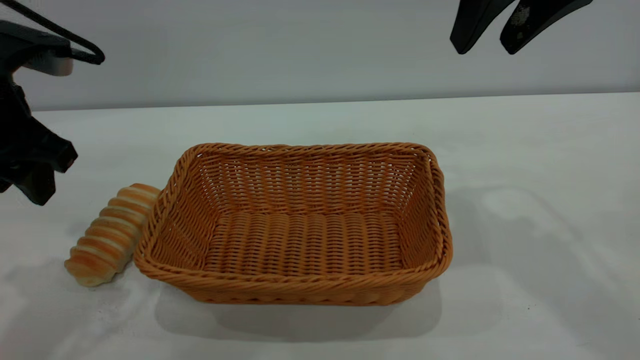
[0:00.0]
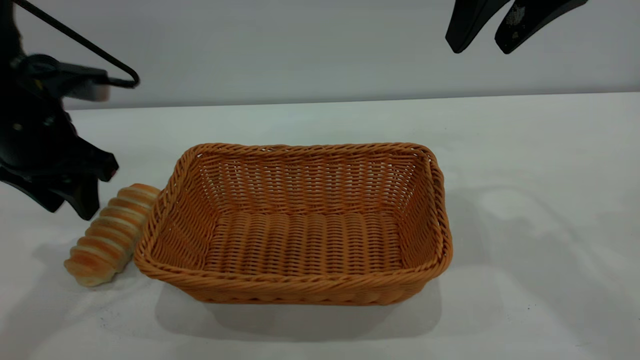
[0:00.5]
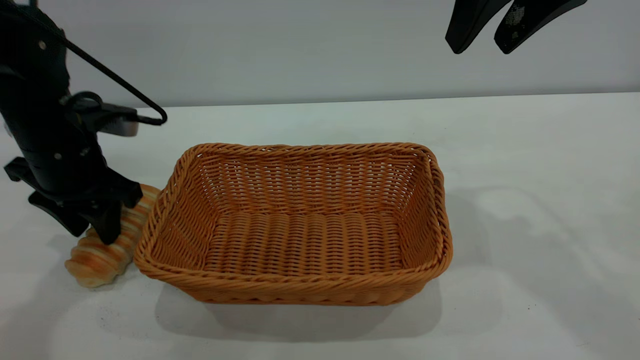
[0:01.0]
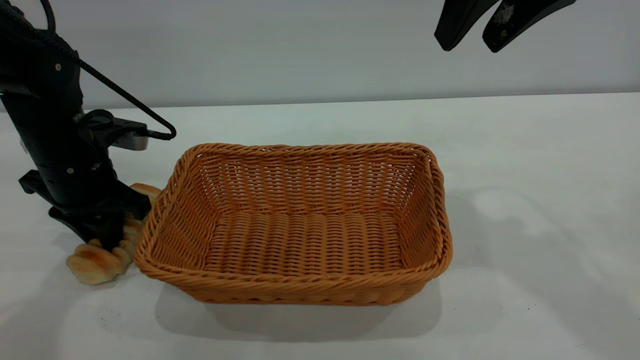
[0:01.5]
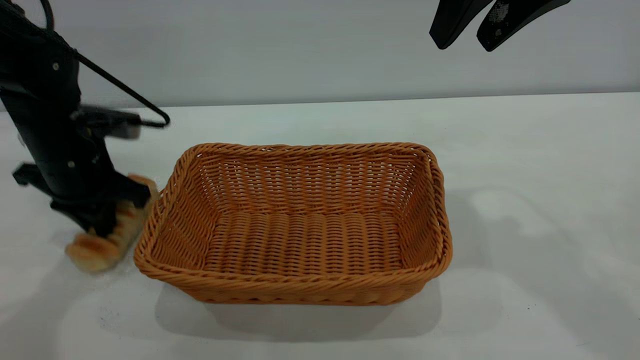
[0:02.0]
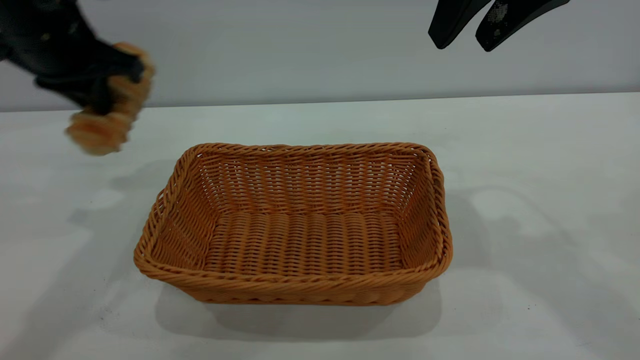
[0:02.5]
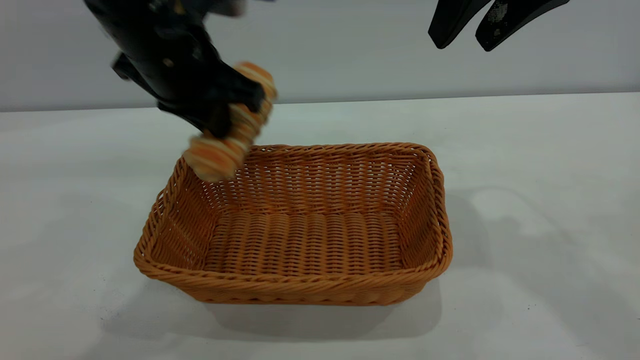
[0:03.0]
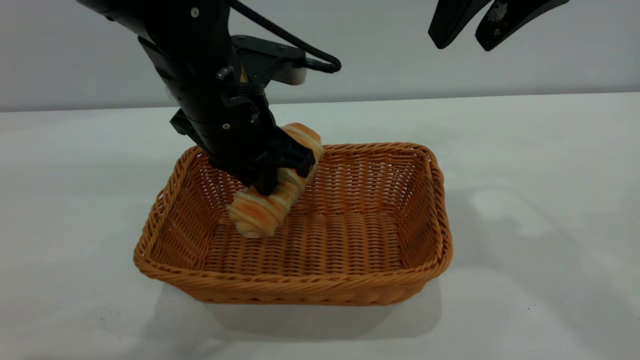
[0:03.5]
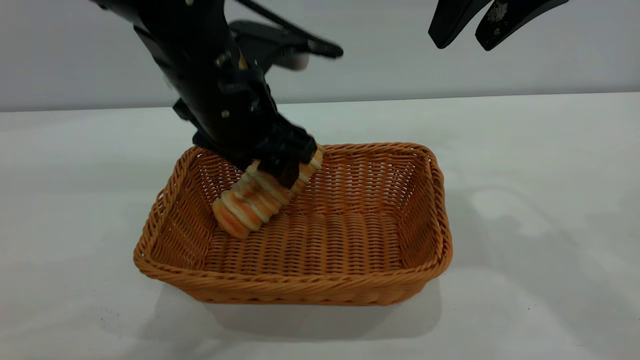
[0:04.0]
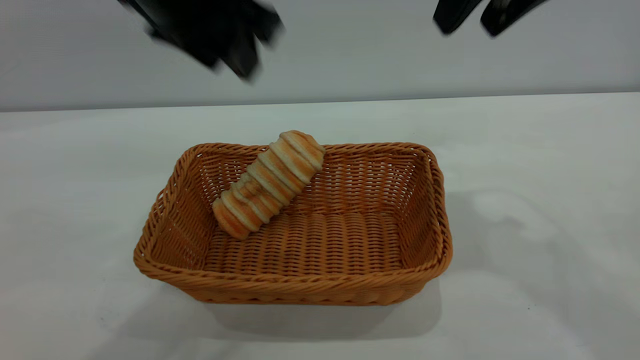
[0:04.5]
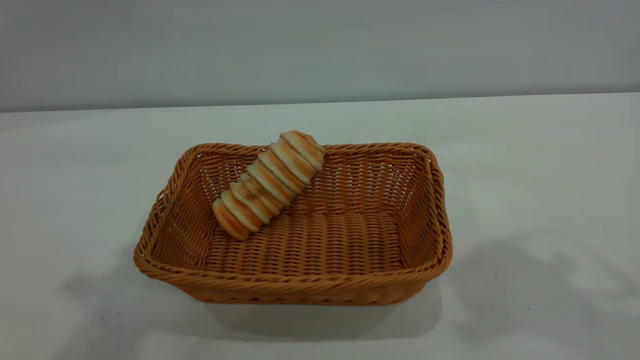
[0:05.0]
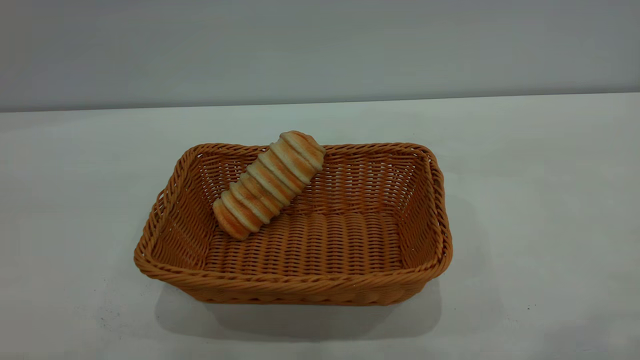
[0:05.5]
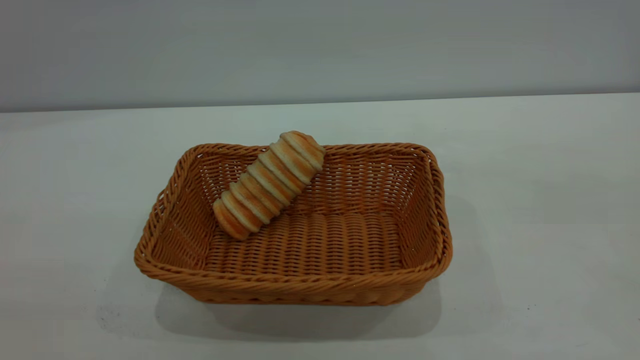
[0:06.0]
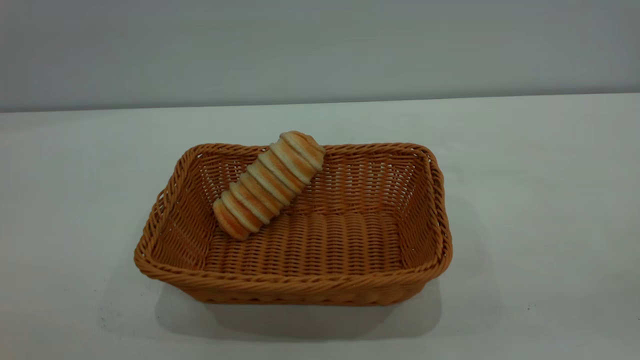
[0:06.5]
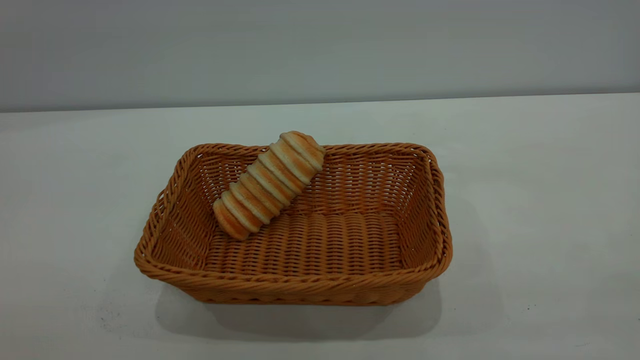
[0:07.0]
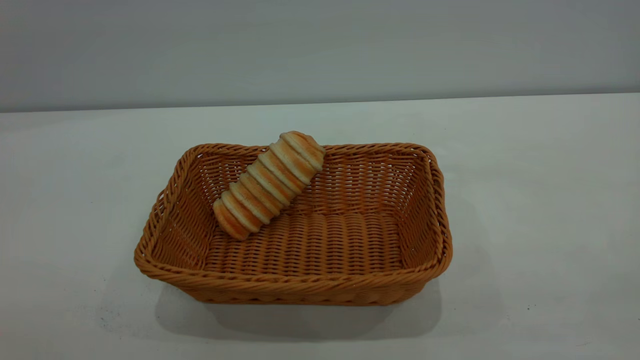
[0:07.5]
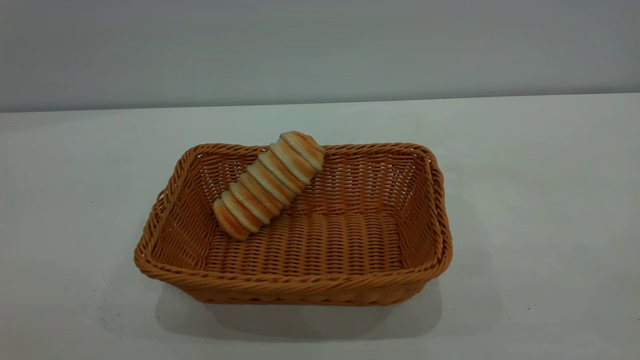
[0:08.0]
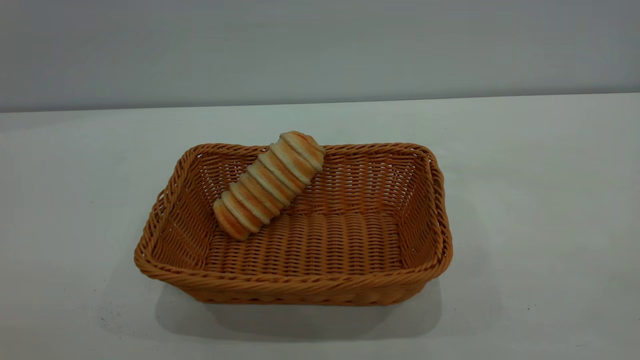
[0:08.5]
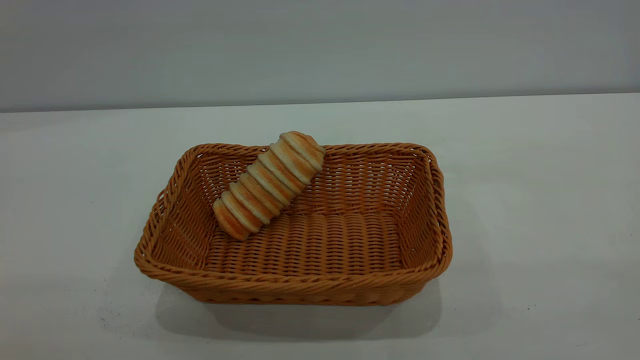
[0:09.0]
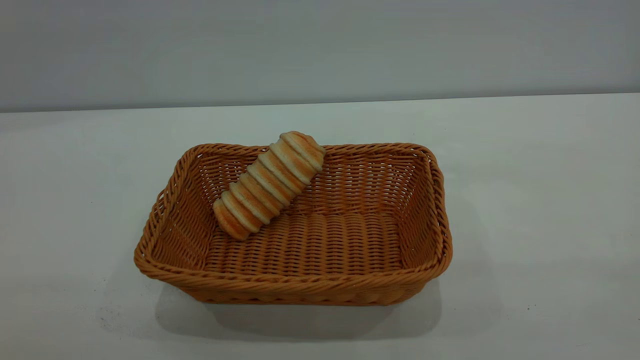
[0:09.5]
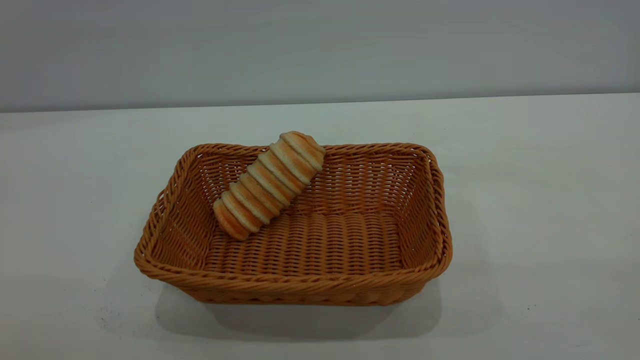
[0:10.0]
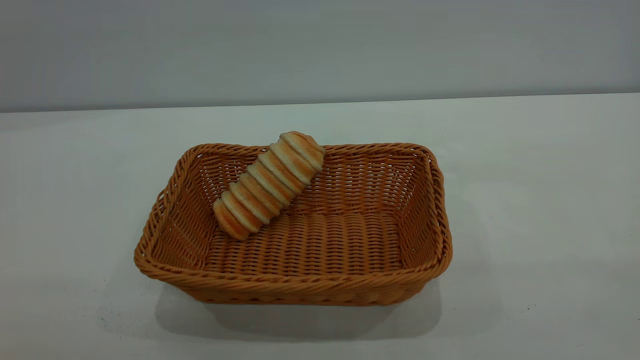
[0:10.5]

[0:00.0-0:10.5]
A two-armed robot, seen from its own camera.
Task of the whole recording: One hand grasps the yellow basket and places it in the middle of the table, while the other hand picks up the long bread and puts it into the yellow basket.
Step, 0:02.5 to 0:04.0: place the bread into the basket.
0:00.0 to 0:02.0: The left gripper shifts some 10 cm downward and forward, and closes.
0:02.0 to 0:04.0: The left gripper travels to the right and upward by roughly 20 cm, and opens up.
0:04.0 to 0:06.5: The right gripper shifts approximately 35 cm backward. Meanwhile the left gripper goes some 40 cm backward, to the left and upward.

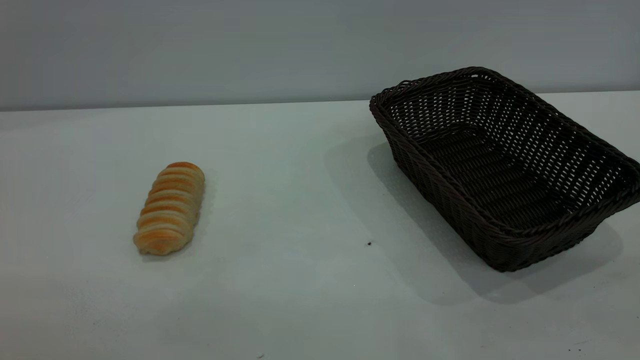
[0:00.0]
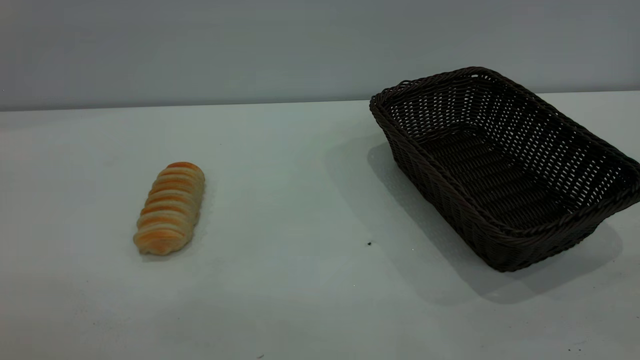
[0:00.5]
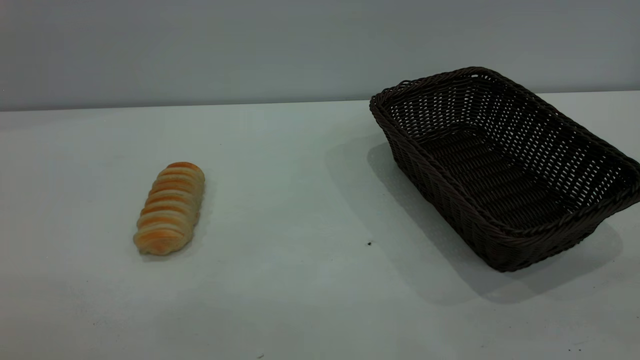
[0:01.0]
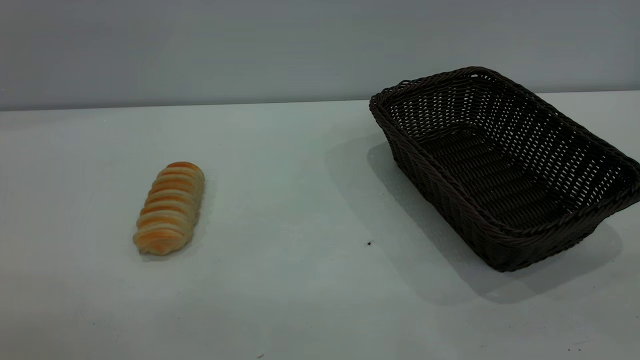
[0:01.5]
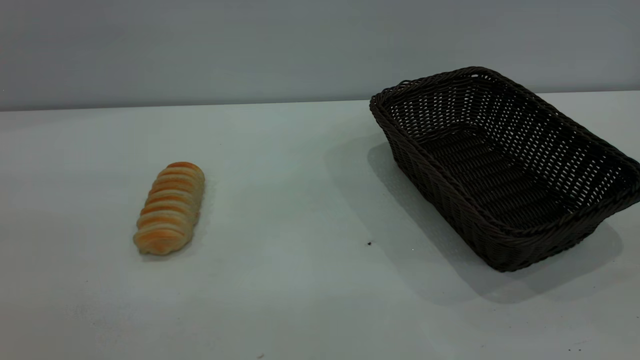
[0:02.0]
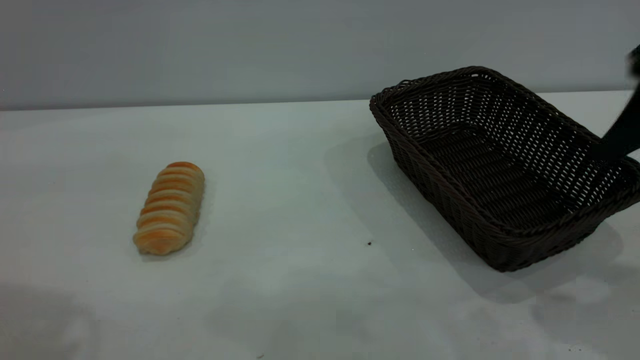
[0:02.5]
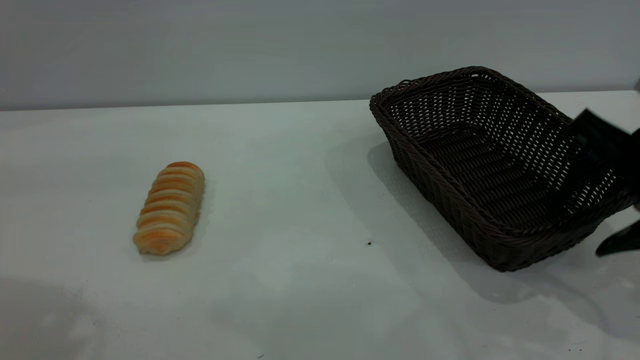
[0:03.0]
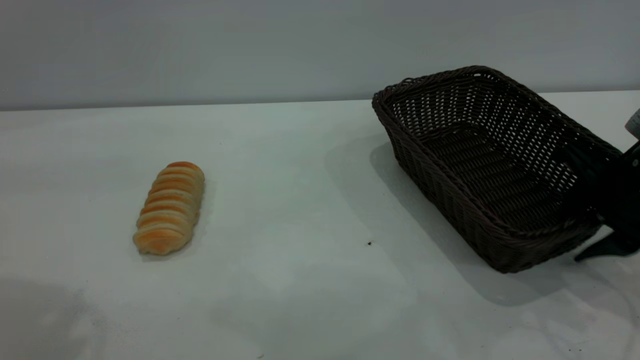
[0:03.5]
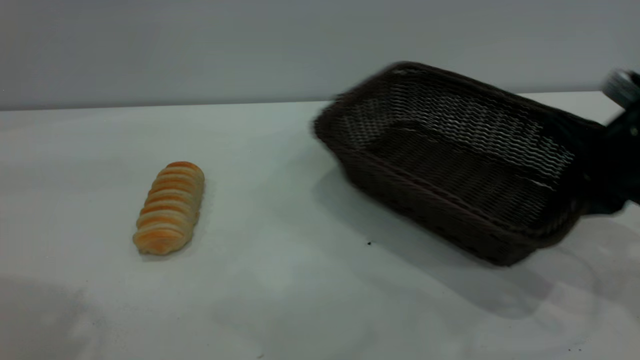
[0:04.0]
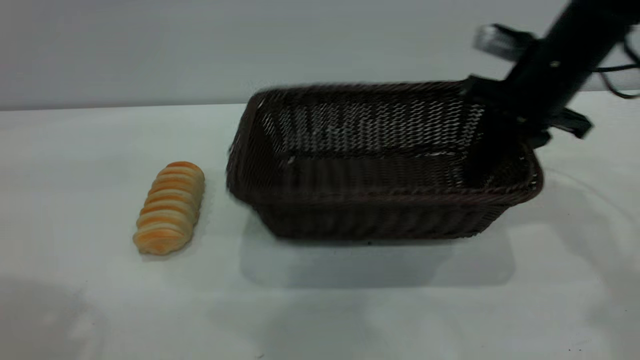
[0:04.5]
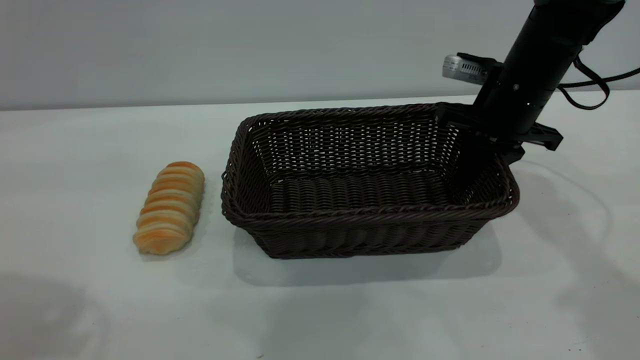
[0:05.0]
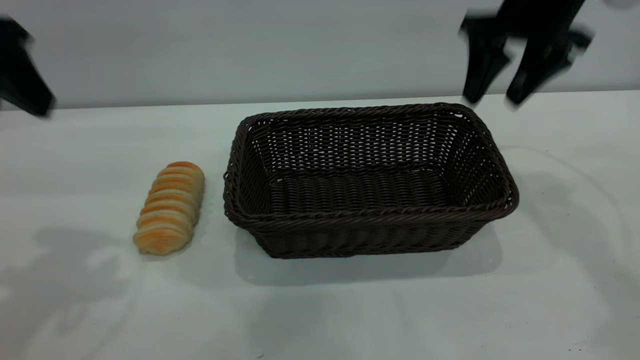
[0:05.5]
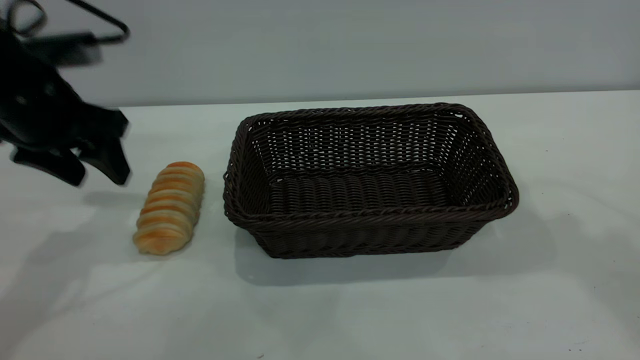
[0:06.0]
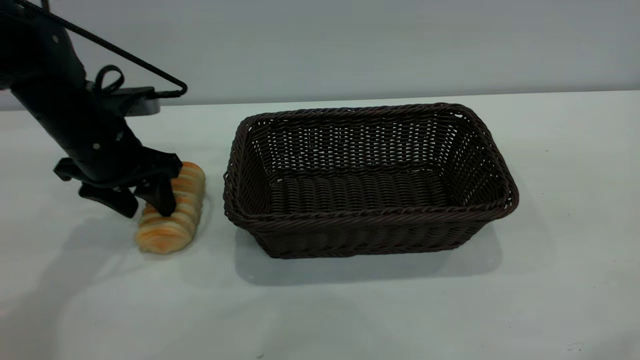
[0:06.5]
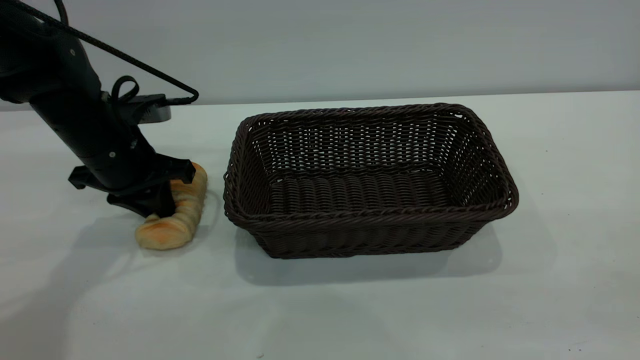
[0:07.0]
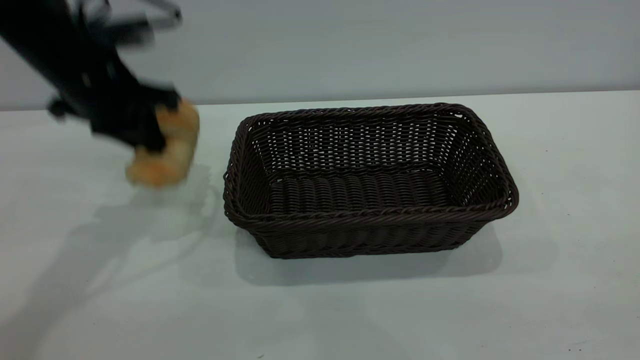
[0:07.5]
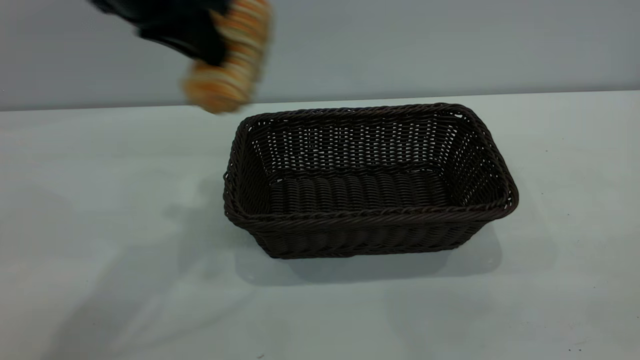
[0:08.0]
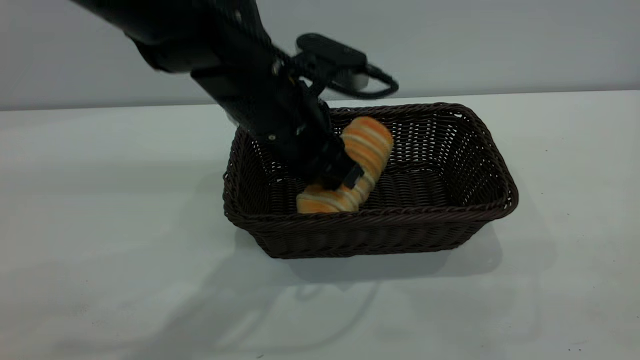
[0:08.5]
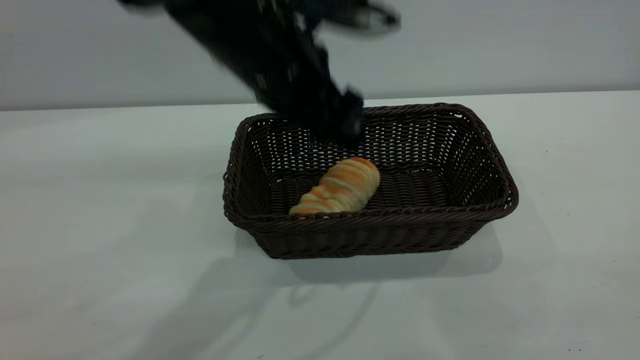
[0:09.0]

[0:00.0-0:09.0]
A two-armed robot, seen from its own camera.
Task of the whole recording: One hand grasps the black basket and places it in the middle of the table, while the other hand picks up the long bread and puts it into the black basket.
Step, 0:00.0 to 0:05.0: Move the basket to the center of view.
Step, 0:08.0 to 0:09.0: place the bread into the basket.
0:02.0 to 0:04.5: The right gripper travels forward and downward by some 35 cm, and closes its fingers, while the left gripper shifts roughly 10 cm forward.
0:04.5 to 0:07.0: The right gripper shifts roughly 40 cm backward and upward, and opens up. Meanwhile the left gripper moves downward and forward, roughly 35 cm, and closes its fingers.
0:07.0 to 0:09.0: The left gripper shifts roughly 25 cm to the right and upward, and opens up. Meanwhile the right gripper moves backward, about 5 cm.
